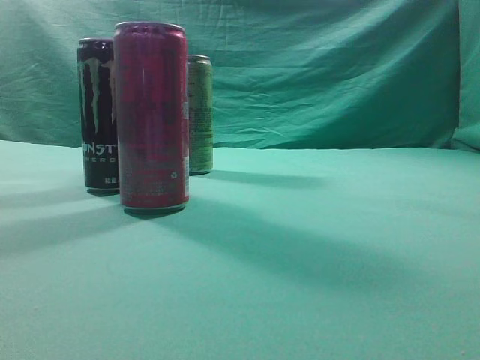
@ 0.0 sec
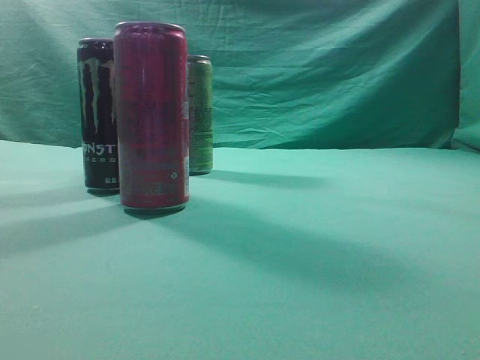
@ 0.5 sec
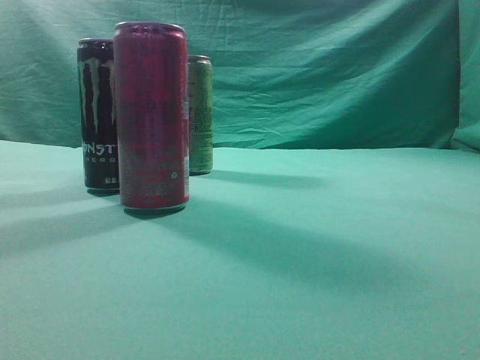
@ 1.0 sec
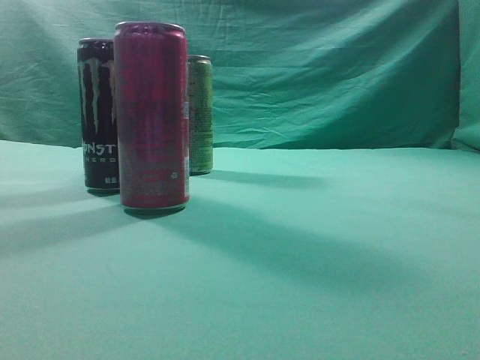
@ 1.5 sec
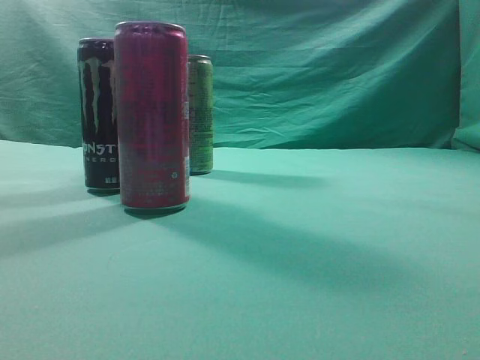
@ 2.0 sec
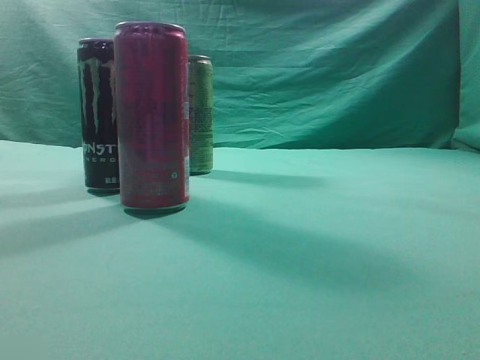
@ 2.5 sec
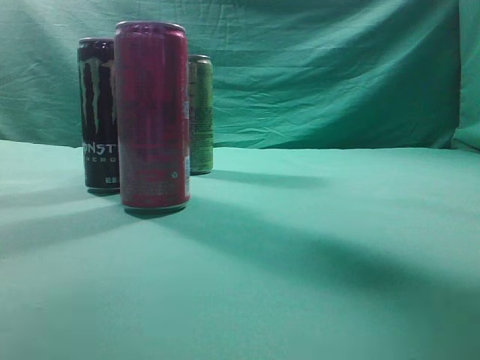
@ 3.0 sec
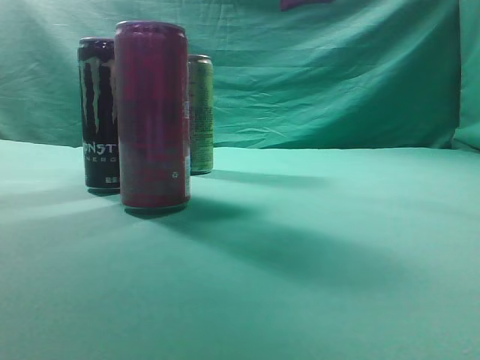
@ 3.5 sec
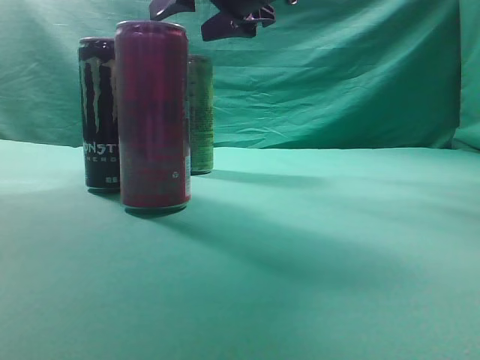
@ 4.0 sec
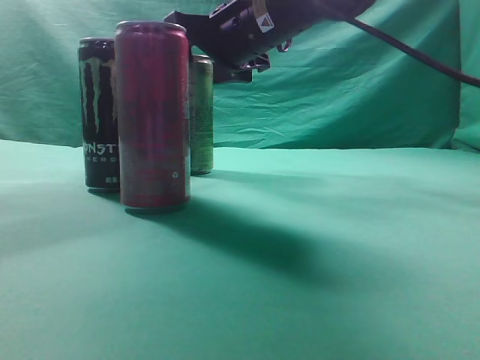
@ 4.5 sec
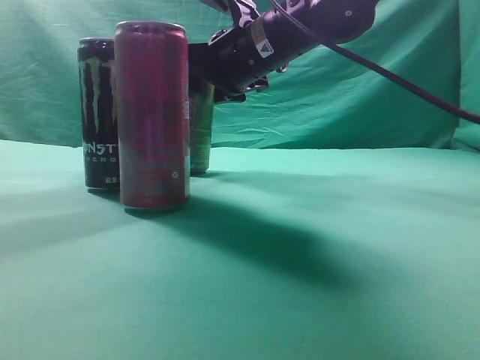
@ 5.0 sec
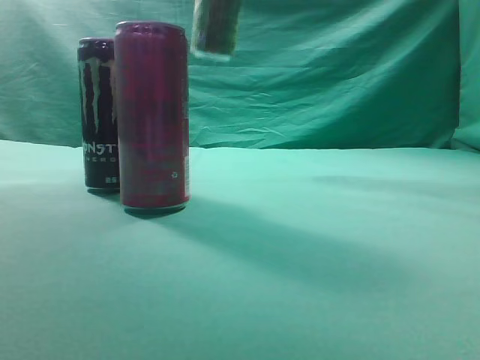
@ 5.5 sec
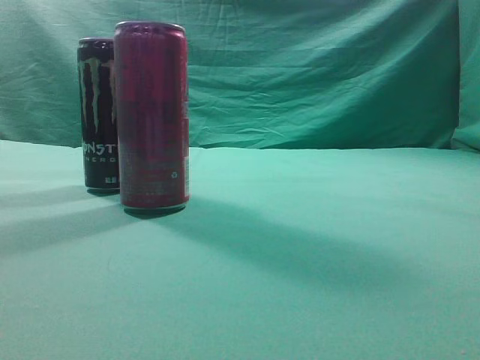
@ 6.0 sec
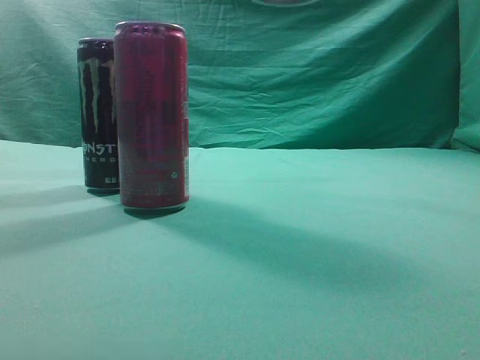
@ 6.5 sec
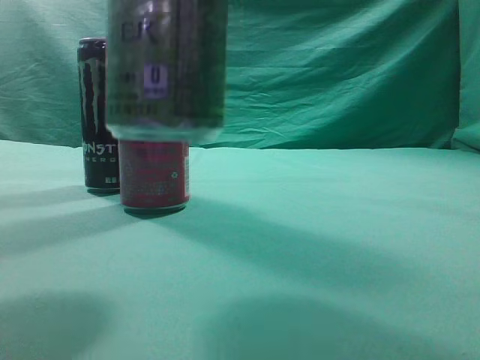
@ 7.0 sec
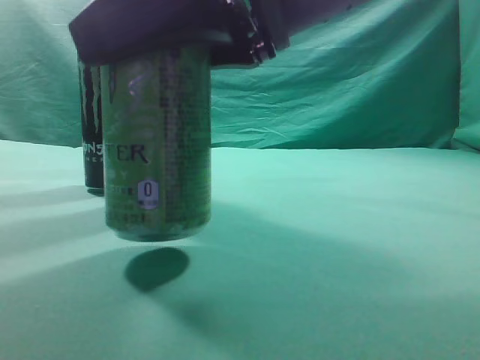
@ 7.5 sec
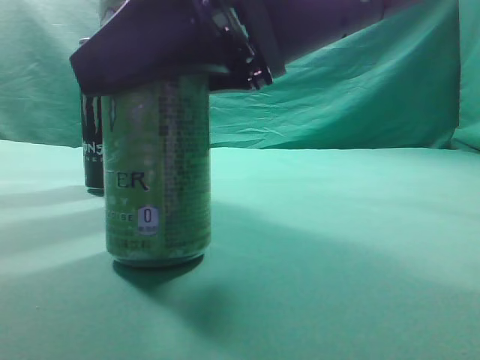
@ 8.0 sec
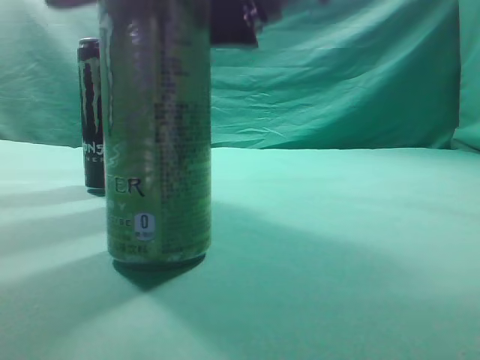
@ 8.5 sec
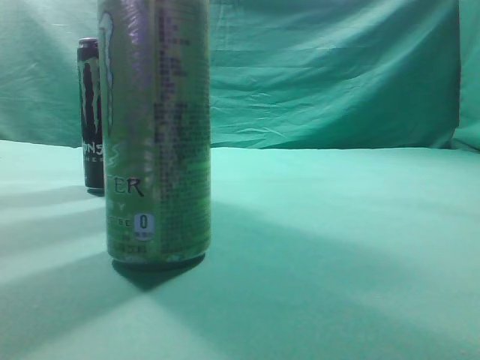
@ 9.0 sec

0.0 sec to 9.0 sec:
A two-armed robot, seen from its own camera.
Task of the whole recording: move one drink among three beverages.
Step, 0.0 sec to 5.0 sec: Grasp the beverage bottle placed at the back of the desk.
Step, 5.5 sec to 8.5 sec: Place the beverage bottle to the front of the table.
2.0 sec to 4.5 sec: The right gripper is displaced forward and to the left by some 50 cm, and opens up.
4.5 sec to 7.0 sec: The right gripper is displaced backward by some 25 cm.
7.0 sec to 9.0 sec: The right gripper is displaced upward by about 10 cm, and closes.
